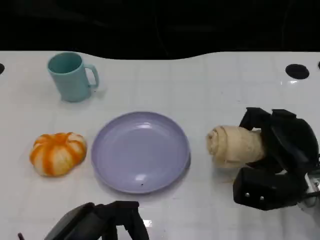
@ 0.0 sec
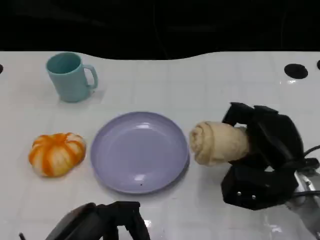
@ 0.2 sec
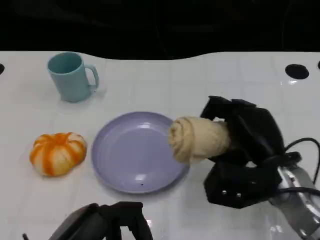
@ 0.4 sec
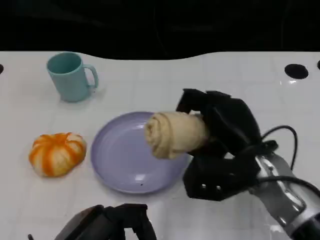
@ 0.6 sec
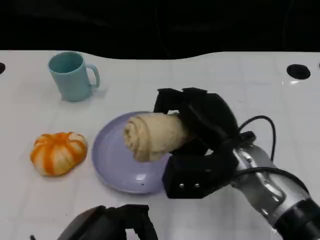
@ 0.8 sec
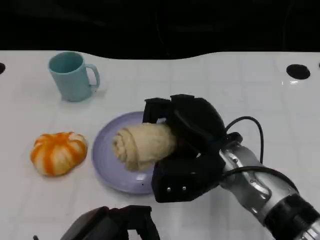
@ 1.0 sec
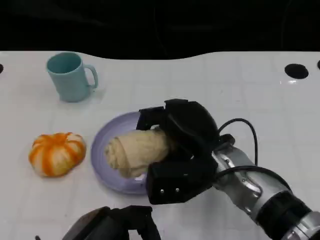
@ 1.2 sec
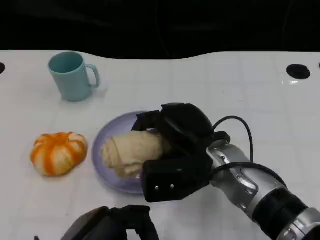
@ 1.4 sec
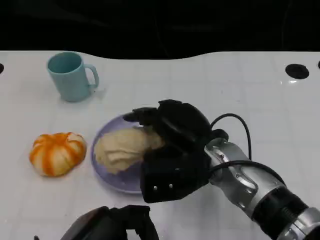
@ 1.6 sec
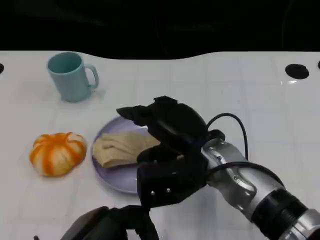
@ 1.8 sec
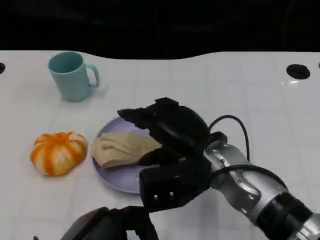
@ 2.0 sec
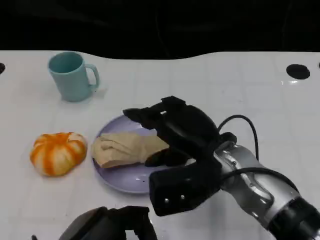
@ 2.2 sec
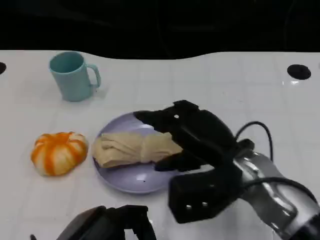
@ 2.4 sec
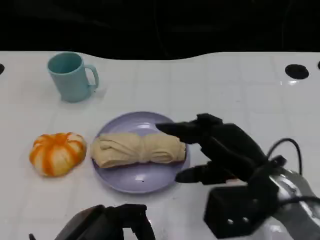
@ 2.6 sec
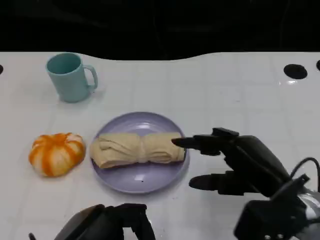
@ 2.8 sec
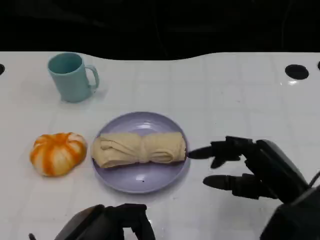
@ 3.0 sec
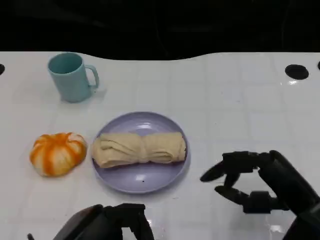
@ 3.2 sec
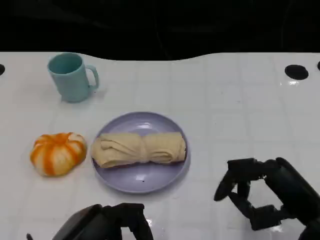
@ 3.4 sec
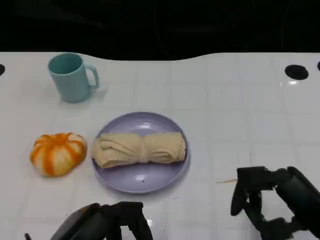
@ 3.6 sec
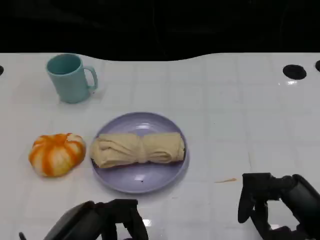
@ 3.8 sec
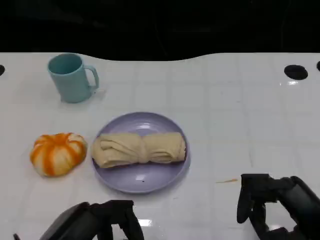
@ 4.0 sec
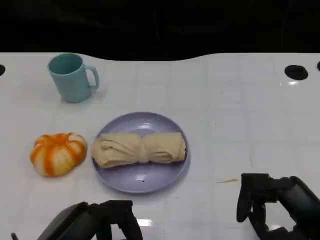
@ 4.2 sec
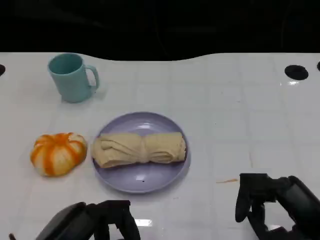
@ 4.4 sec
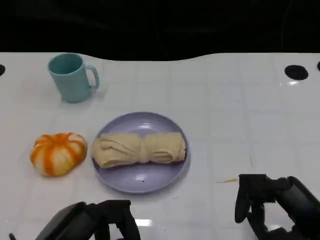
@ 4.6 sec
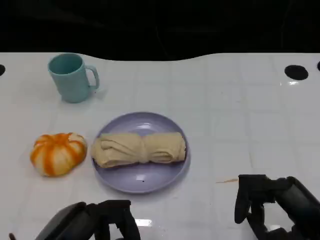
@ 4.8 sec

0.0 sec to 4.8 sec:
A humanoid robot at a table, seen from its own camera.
Task of the whole recording: Grasp the towel on the left side of the plate with the left hand and place it into the plate.
0.0 sec to 1.6 sec: The right hand moves to the left, about 15 cm.
1.6 sec to 3.2 sec: The right hand goes roughly 15 cm to the right and backward.
3.2 sec to 4.8 sec: The hands stay close to where they were, moving slightly.
